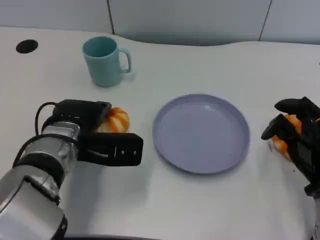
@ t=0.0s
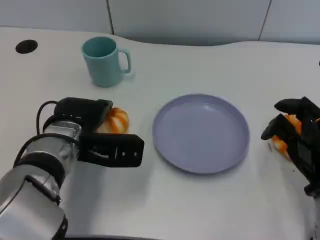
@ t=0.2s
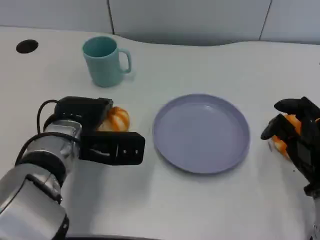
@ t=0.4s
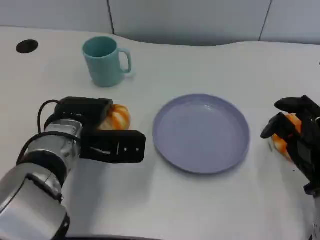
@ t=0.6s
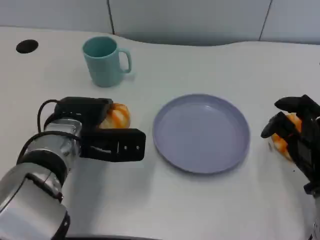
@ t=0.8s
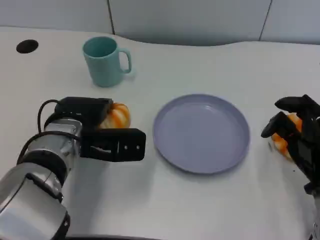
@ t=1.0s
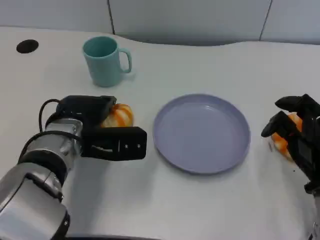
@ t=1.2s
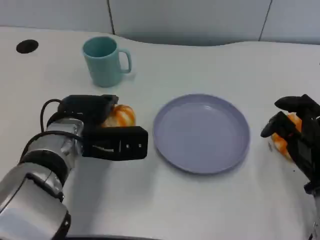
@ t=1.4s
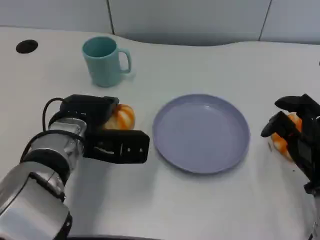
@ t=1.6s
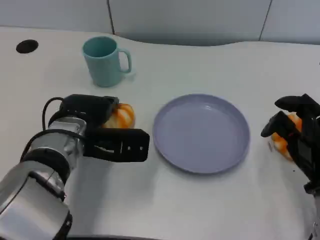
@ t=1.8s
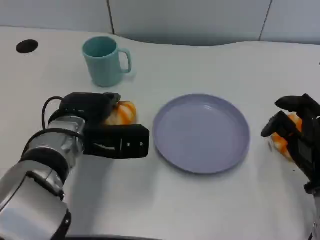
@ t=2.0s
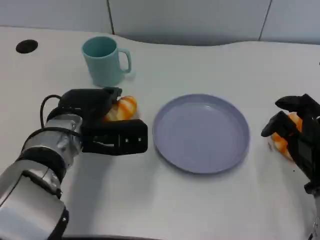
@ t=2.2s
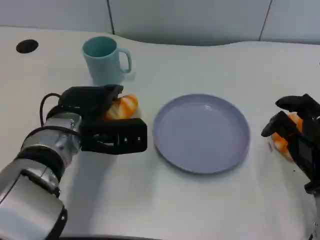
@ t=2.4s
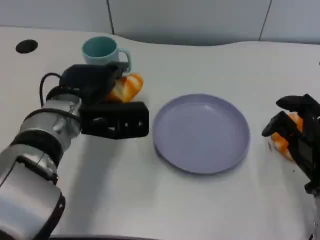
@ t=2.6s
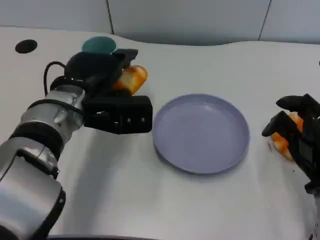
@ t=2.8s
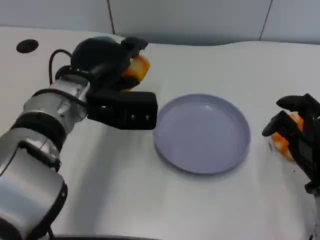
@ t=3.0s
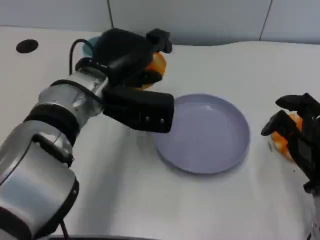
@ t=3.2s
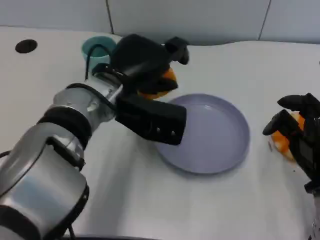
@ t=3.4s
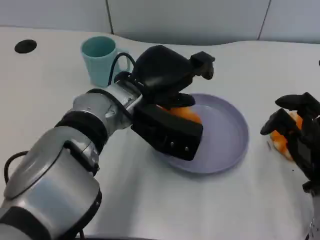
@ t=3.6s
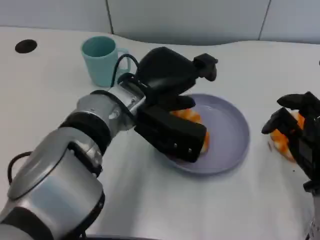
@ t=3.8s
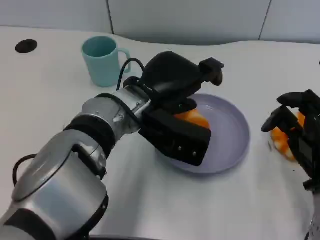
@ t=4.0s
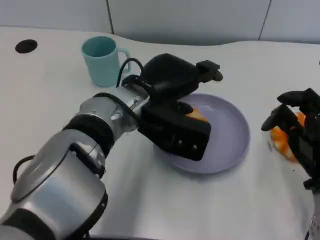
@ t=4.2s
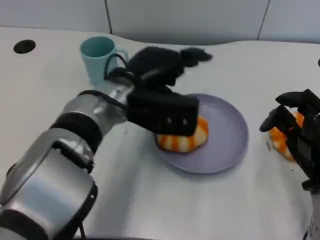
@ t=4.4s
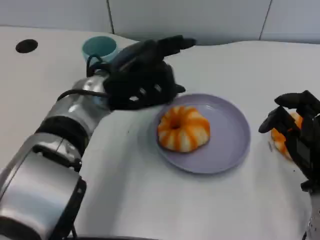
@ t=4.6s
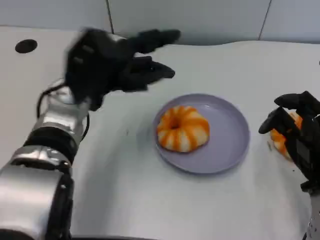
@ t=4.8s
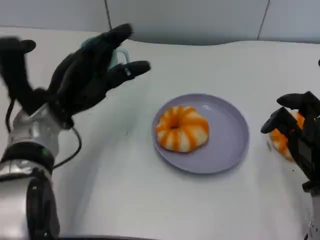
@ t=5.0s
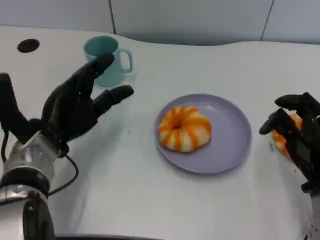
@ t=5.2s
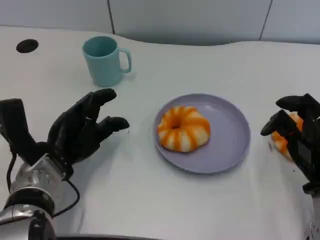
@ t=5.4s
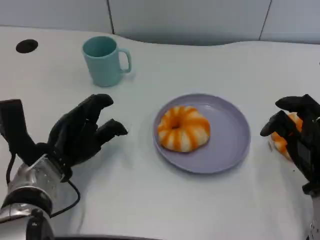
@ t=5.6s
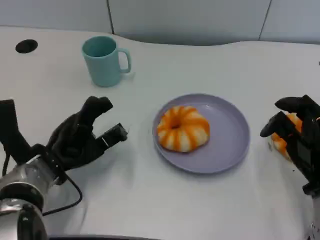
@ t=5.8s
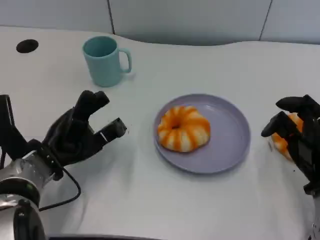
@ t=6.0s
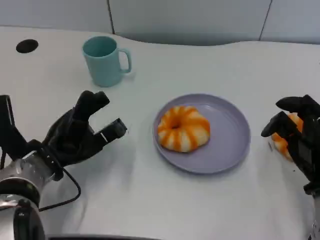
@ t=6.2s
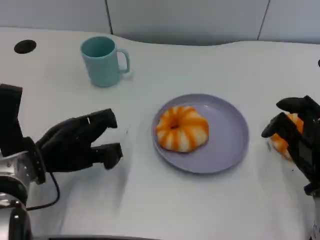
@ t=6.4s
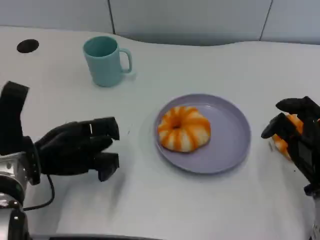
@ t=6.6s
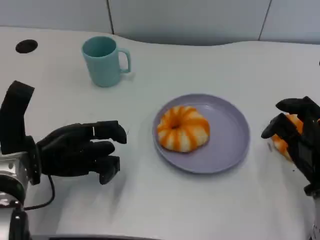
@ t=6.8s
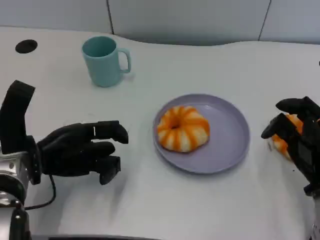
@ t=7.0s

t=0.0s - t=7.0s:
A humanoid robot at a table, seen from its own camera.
Task of the whole recording: Grasp the bread from the table and place it into the plate.
t=0.0s - t=1.4s: The hands make only small movements.
t=1.4s - t=2.8s: The left hand moves upward, some 5 cm.
t=2.8s - t=4.2s: The left hand is displaced to the right by some 10 cm.
t=4.2s - t=5.6s: The left hand heads to the left and downward, covering roughly 15 cm.

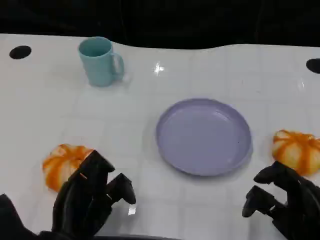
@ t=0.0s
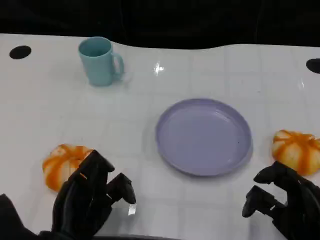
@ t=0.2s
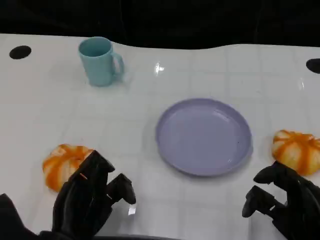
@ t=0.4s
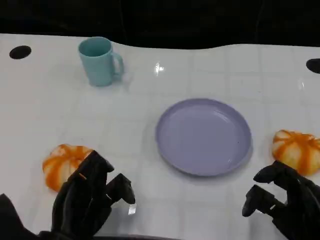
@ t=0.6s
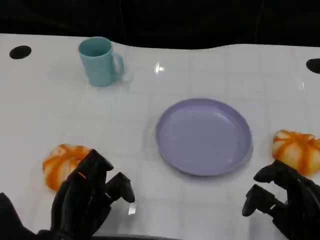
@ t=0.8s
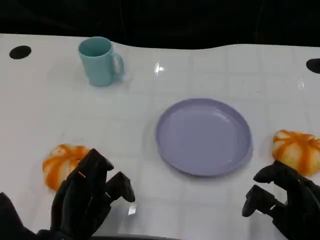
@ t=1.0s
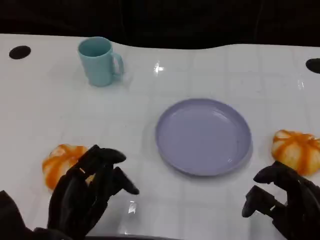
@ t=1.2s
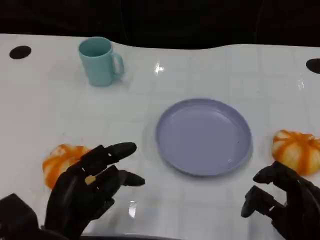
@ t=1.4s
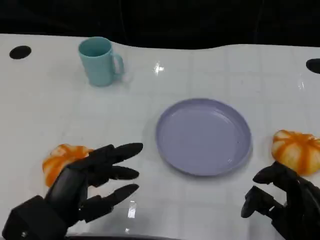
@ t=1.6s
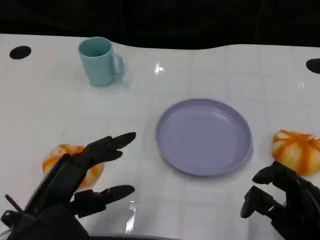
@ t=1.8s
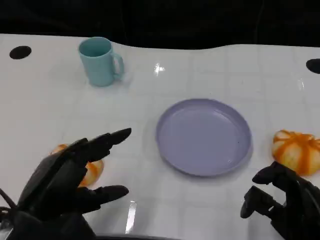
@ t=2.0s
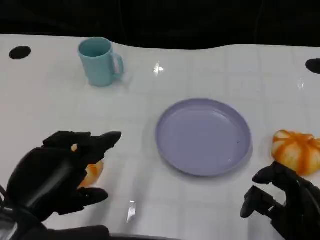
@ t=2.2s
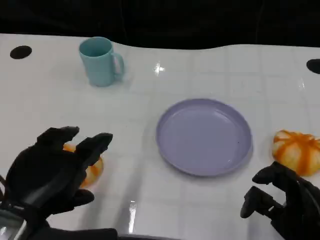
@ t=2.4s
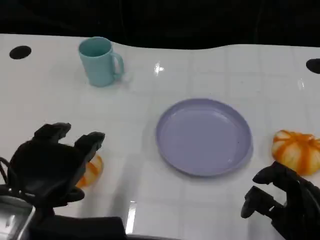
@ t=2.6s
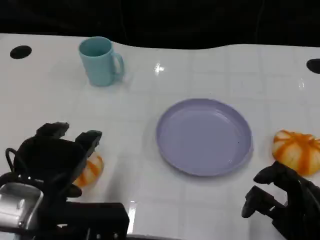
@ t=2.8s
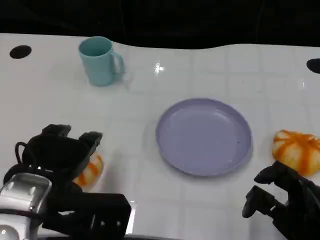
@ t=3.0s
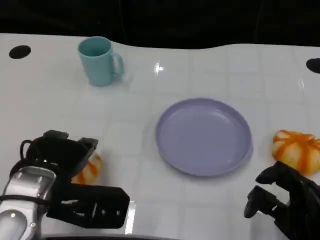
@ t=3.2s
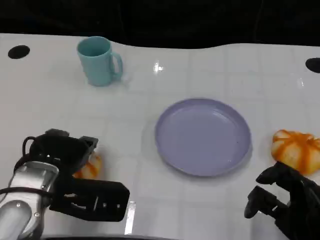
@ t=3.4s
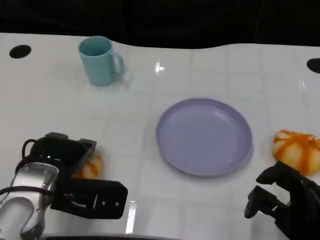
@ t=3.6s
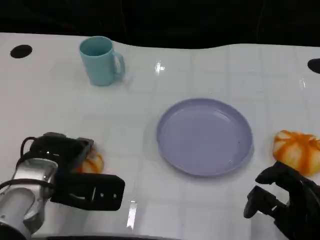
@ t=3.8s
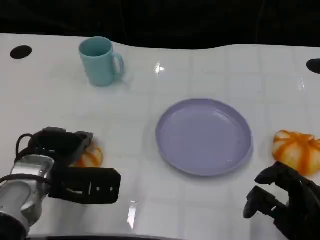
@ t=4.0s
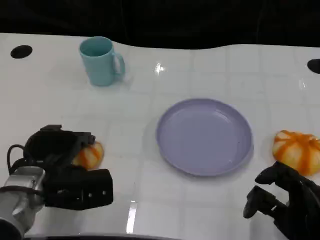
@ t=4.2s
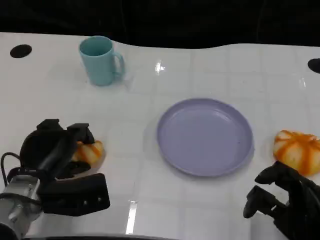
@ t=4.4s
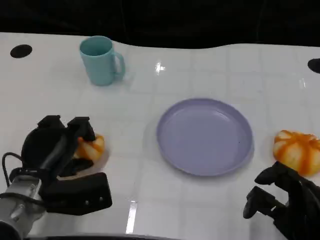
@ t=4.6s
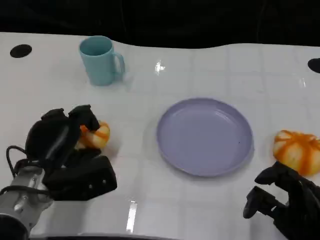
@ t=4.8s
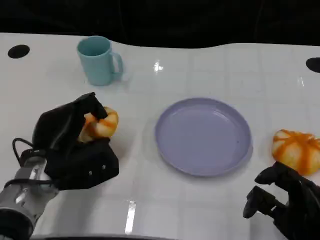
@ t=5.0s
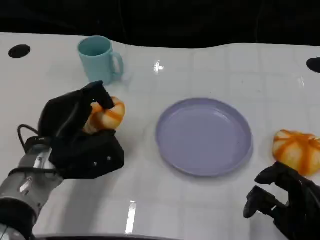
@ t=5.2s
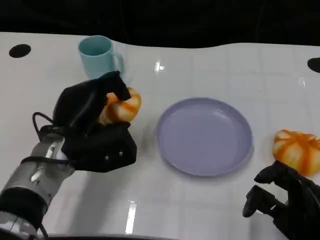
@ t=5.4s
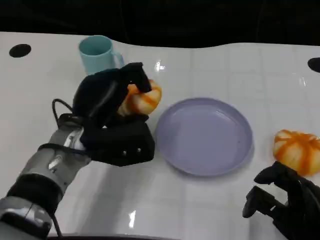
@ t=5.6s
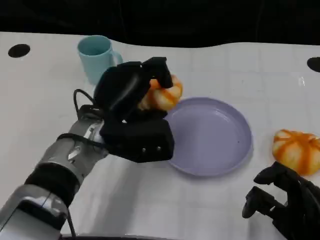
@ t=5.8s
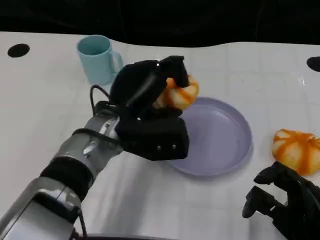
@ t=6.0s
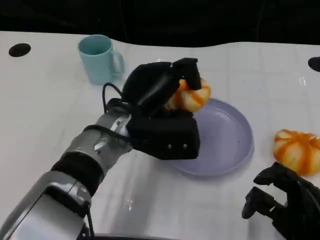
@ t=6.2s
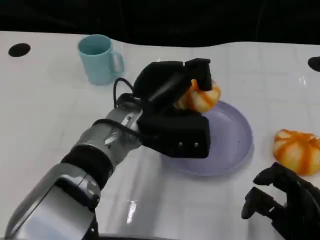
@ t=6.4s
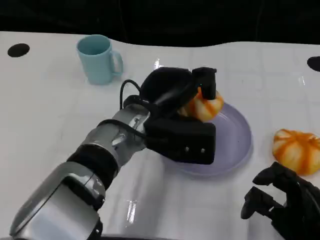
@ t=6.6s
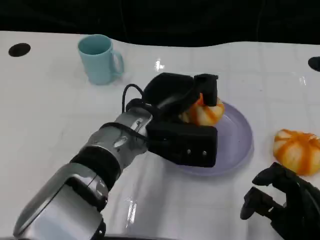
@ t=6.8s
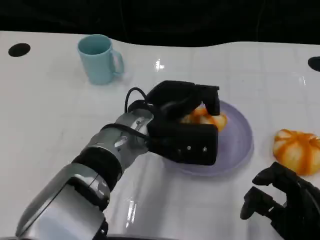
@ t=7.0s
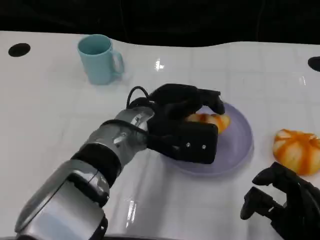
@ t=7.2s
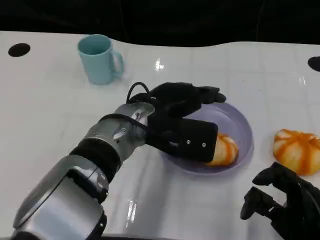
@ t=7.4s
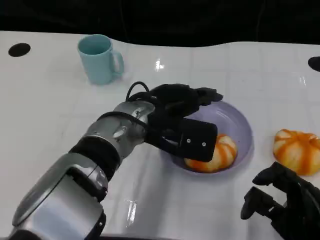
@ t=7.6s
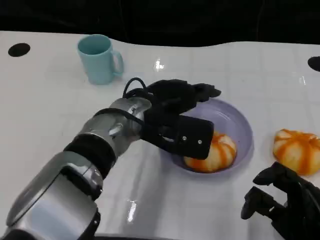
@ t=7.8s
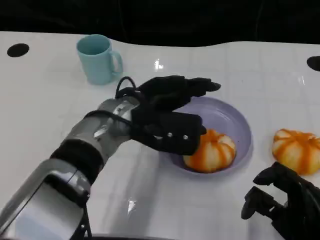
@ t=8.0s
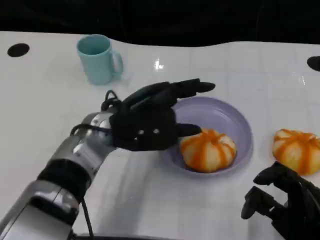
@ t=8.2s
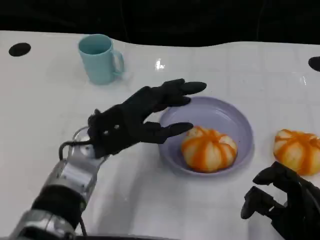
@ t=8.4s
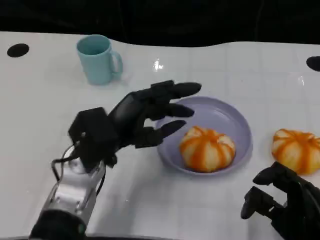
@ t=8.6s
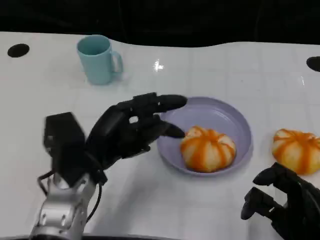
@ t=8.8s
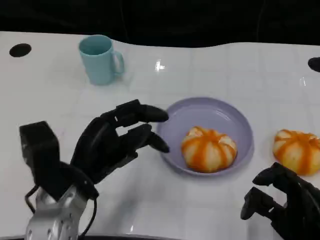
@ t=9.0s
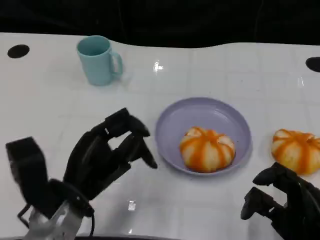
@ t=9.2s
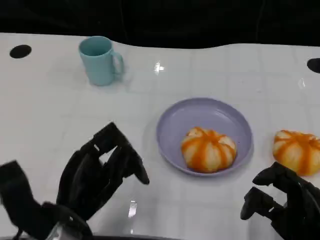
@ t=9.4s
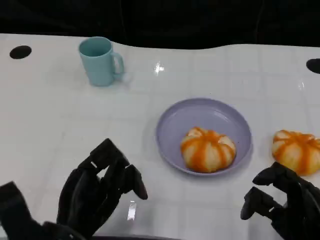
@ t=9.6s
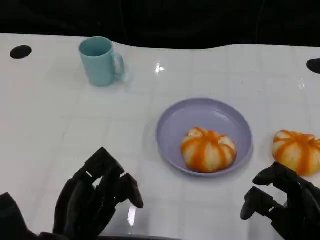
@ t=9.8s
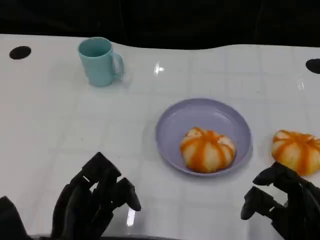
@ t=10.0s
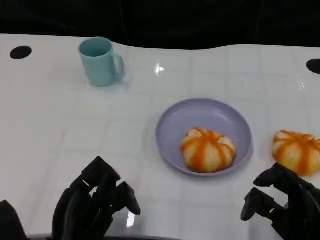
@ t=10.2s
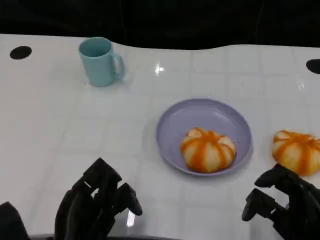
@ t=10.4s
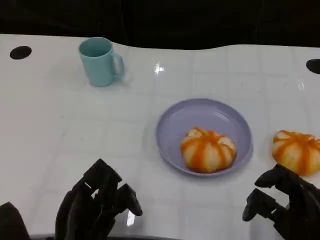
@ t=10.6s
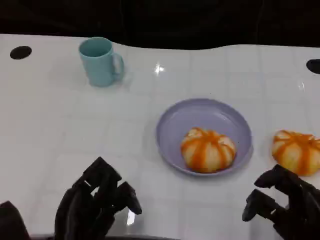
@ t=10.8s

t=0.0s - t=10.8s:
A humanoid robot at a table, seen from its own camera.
Task of the whole recording: Grasp the bread from the table and place it into the plate.
t=0.0s - t=1.6s: The left hand goes about 5 cm upward.
t=1.6s - t=3.0s: The left hand goes approximately 5 cm forward.
t=3.0s - t=4.6s: The left hand shifts about 10 cm downward.
t=4.6s - t=6.2s: The left hand goes roughly 15 cm to the right and upward.
t=7.8s - t=9.2s: The left hand shifts approximately 15 cm to the left, backward and downward.
t=9.2s - t=10.8s: The left hand is displaced backward by some 5 cm.

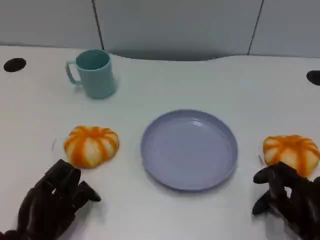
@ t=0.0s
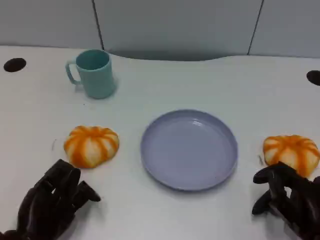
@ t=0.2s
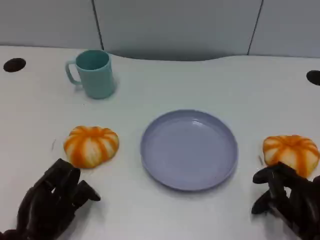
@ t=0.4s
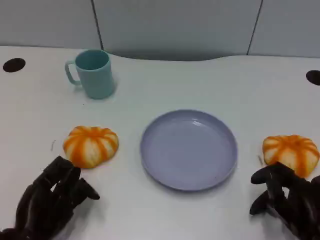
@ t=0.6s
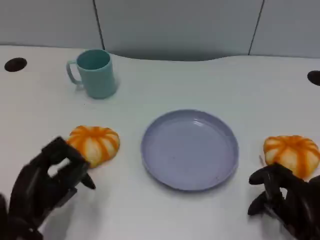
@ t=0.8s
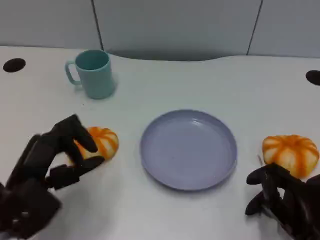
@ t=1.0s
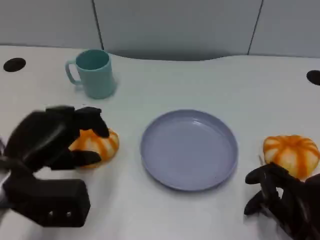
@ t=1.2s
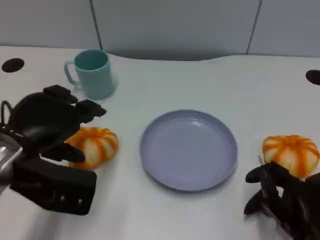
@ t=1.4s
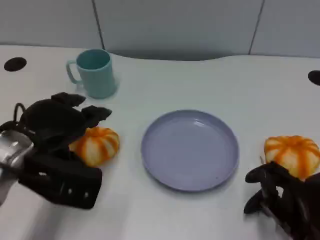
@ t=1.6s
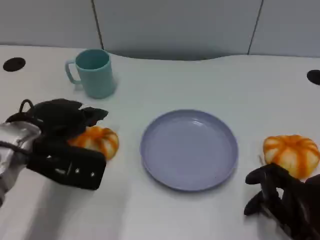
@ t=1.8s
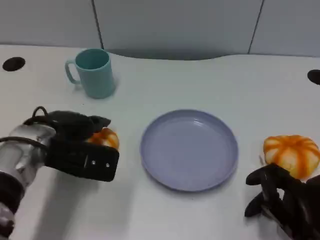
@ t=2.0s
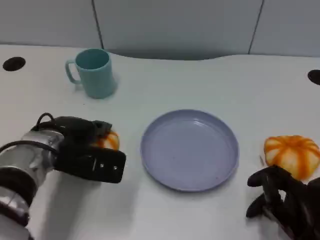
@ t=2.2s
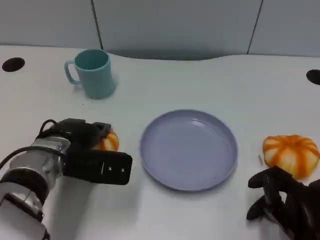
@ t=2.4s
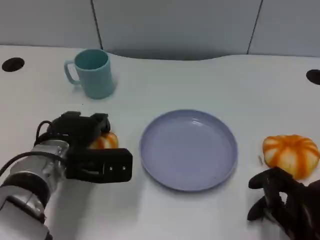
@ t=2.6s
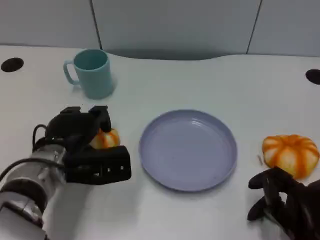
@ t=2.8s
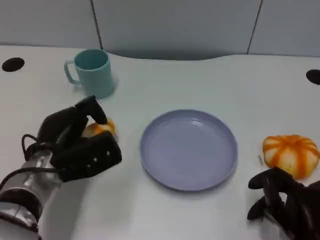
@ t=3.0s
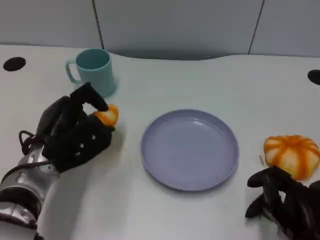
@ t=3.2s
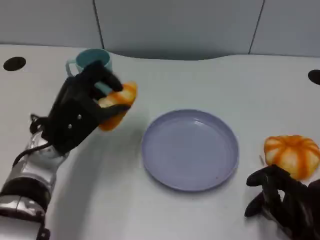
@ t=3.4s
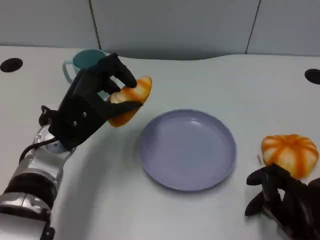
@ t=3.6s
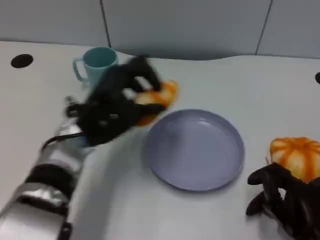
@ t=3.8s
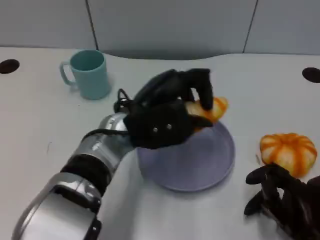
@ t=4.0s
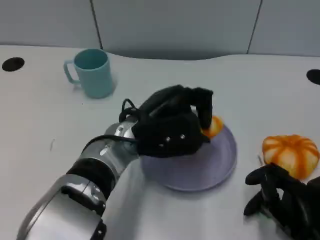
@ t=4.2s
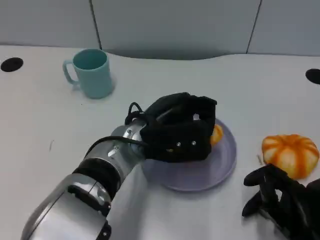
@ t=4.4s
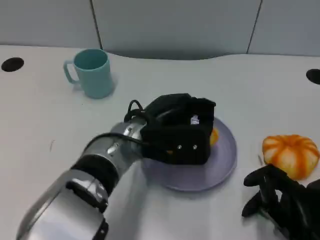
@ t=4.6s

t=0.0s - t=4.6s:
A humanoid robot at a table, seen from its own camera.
Task of the whole recording: Grasp the bread from the table and place it into the plate.
t=0.0s - t=1.6s: The left hand heads upward and forward, covering about 15 cm.
t=1.6s - t=3.0s: The left hand travels downward by some 5 cm.
t=3.0s - t=4.6s: The left hand goes some 15 cm to the right and upward.
